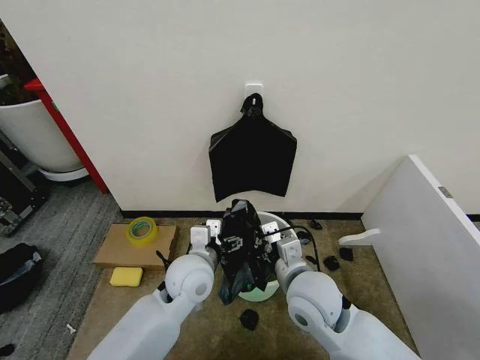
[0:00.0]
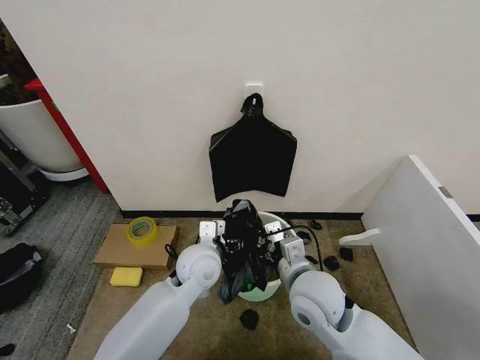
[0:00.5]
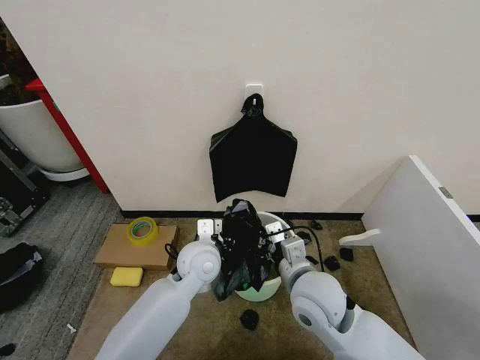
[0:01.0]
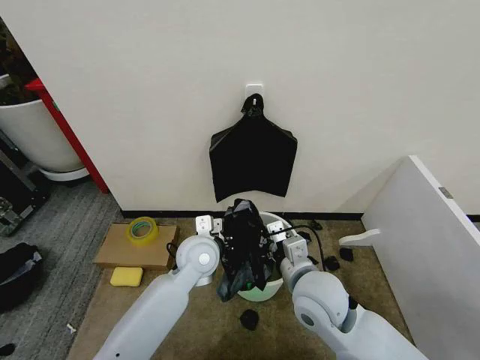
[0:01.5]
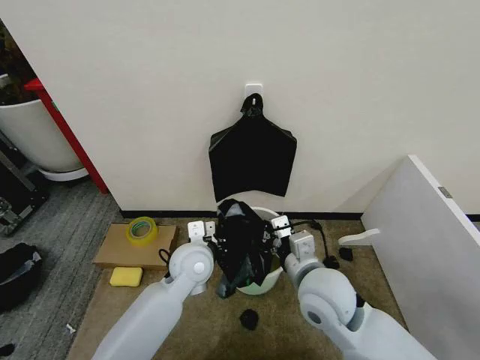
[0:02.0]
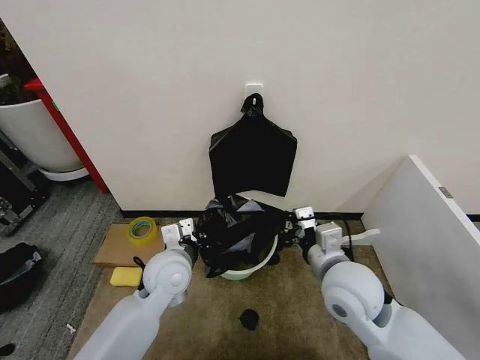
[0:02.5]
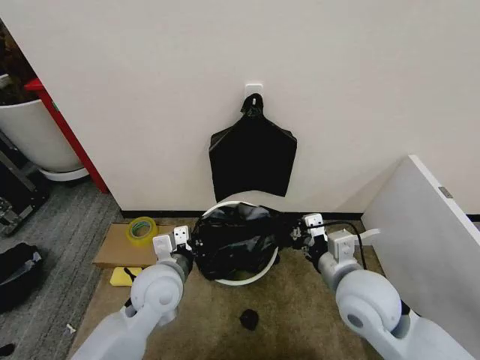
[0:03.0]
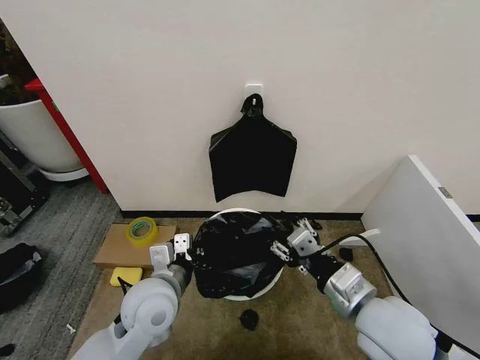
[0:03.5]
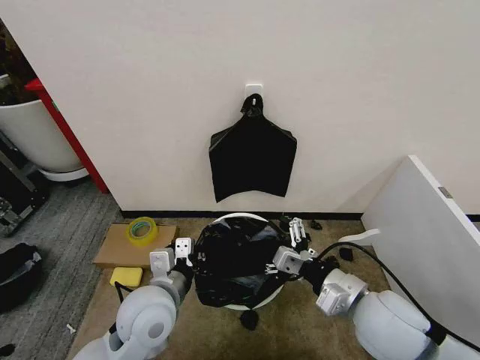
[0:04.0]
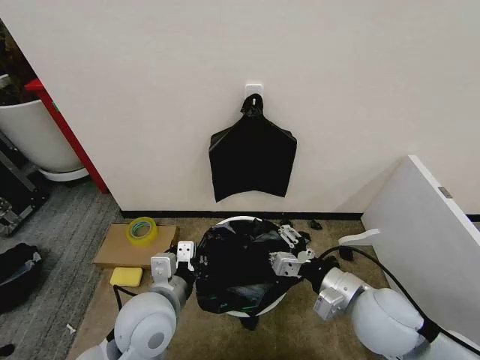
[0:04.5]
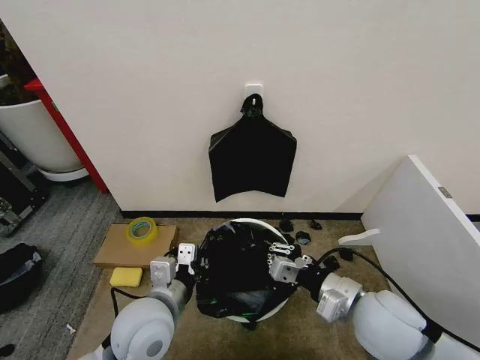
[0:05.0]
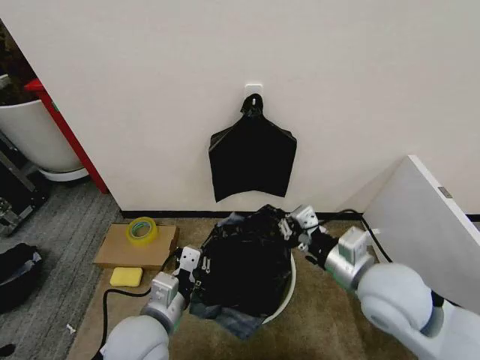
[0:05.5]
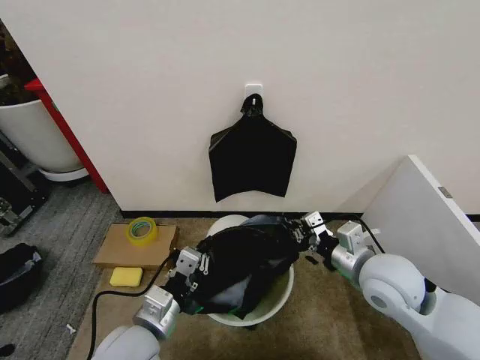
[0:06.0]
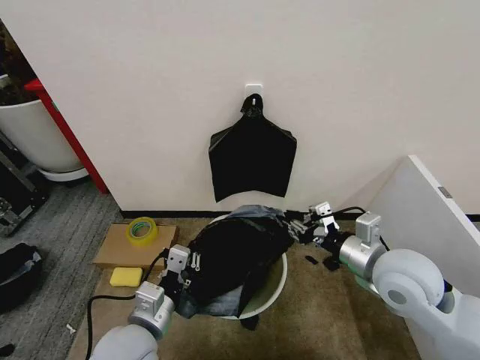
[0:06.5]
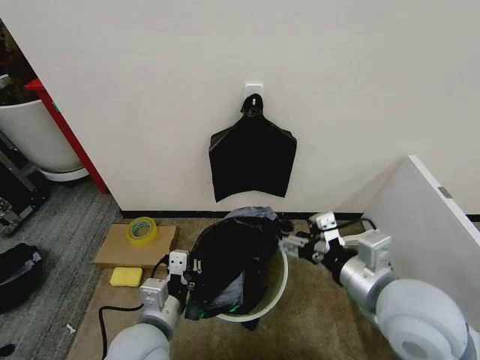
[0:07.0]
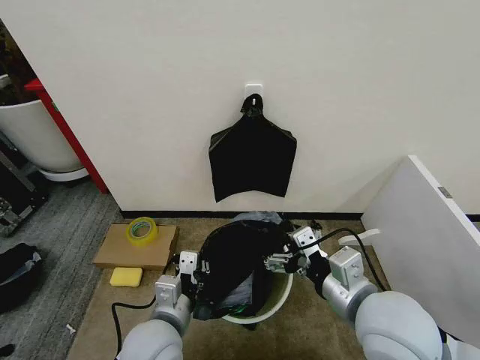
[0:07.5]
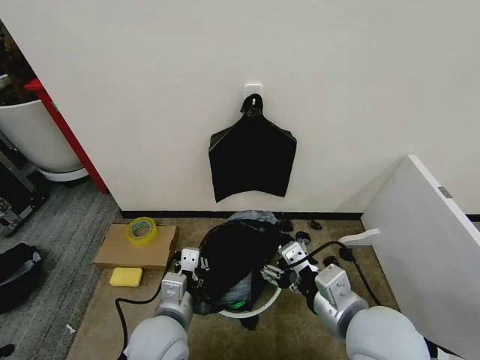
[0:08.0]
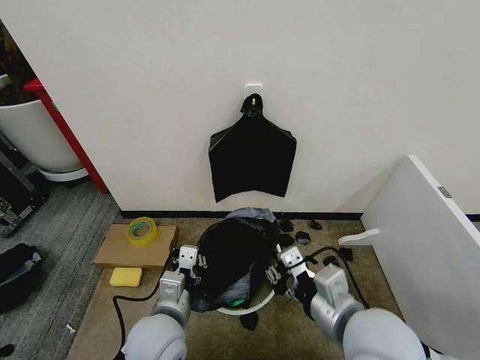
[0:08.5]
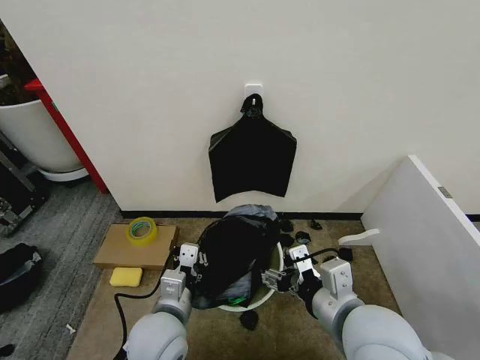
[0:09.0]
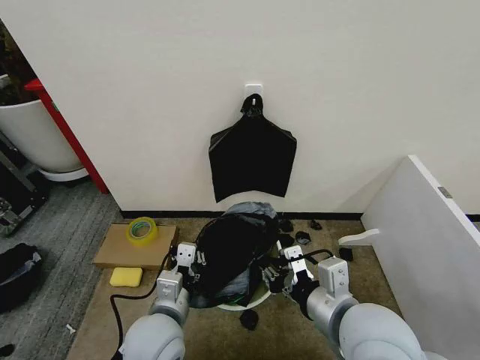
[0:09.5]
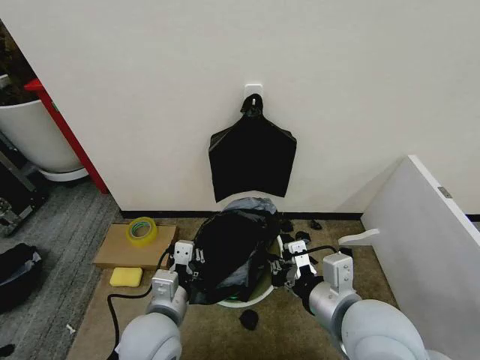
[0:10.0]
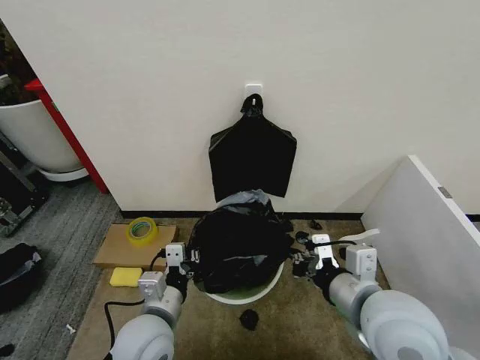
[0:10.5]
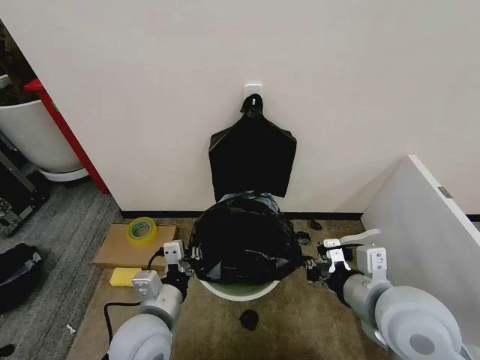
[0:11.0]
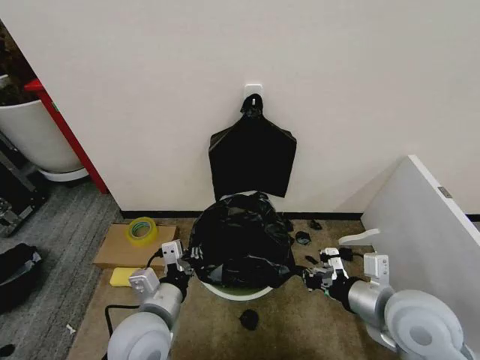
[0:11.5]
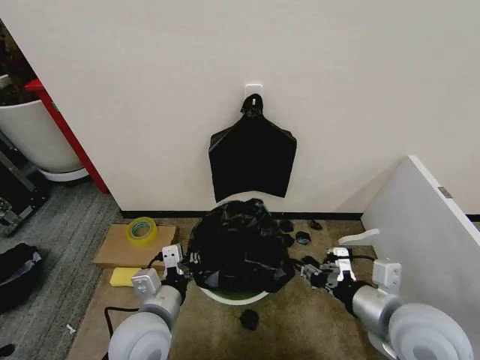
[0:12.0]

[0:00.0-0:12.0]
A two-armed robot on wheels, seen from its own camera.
Task of the whole recording: Place the garbage bag over the trash bin.
0:00.0 to 0:02.0: The left gripper closes up.
0:02.0 to 0:04.0: The left gripper moves backward and to the left, roughly 15 cm. Meanwhile the right gripper travels to the right by about 10 cm, and opens its fingers.
0:04.0 to 0:06.0: The left gripper goes some 5 cm backward; the right gripper heads forward, covering approximately 5 cm, and closes its fingers.
0:06.0 to 0:08.0: The right gripper travels backward and to the left by some 15 cm, and opens.
0:08.0 to 0:10.0: The right gripper closes.
0:10.0 to 0:12.0: The right gripper is displaced to the right by approximately 10 cm.

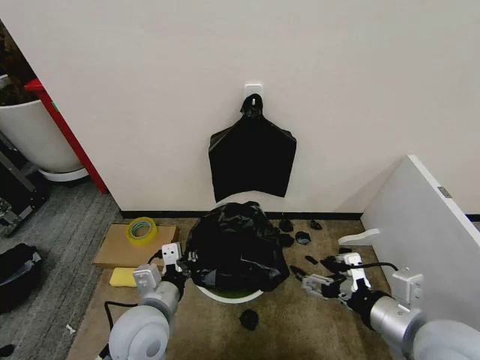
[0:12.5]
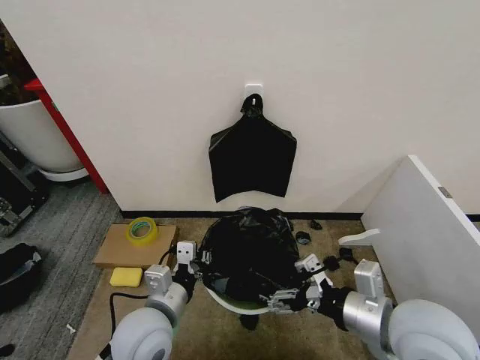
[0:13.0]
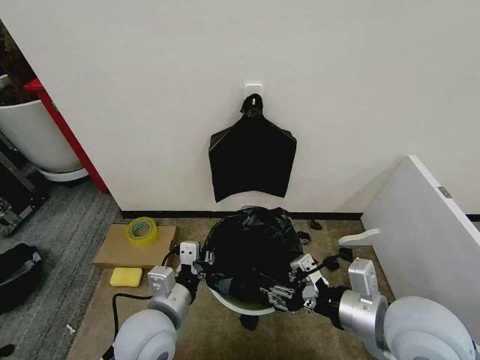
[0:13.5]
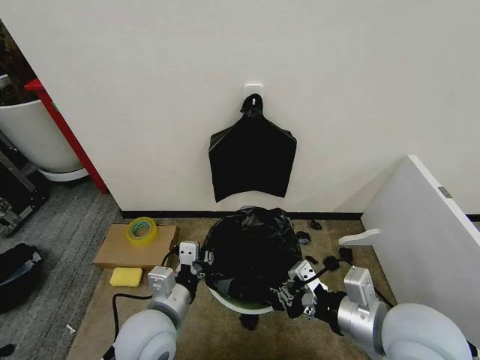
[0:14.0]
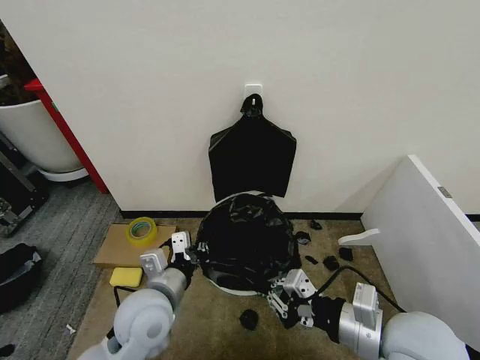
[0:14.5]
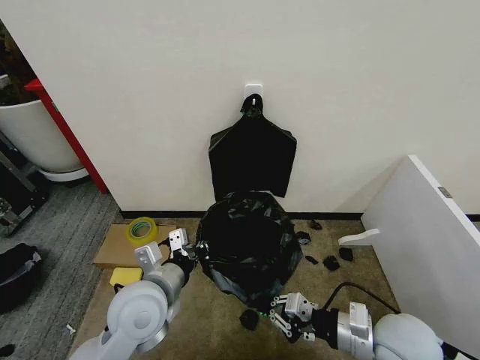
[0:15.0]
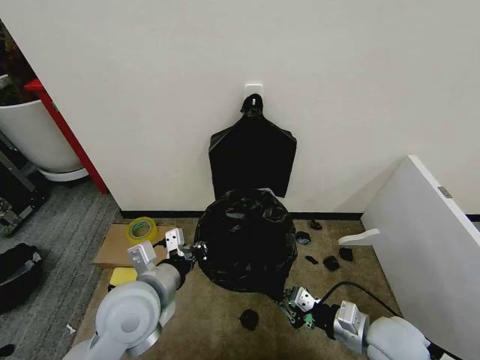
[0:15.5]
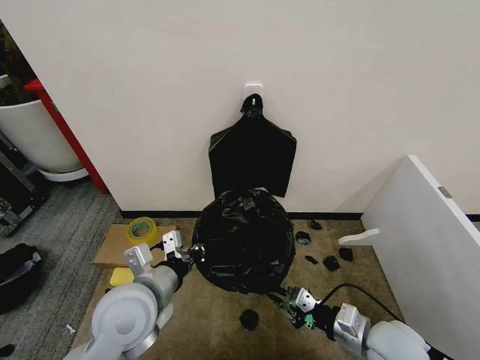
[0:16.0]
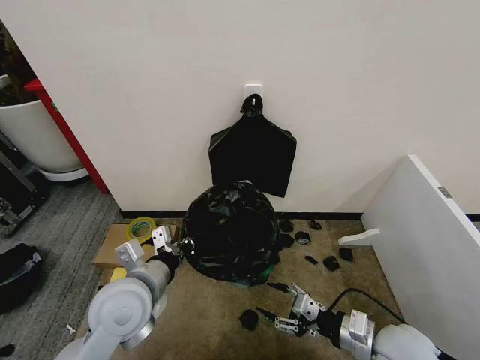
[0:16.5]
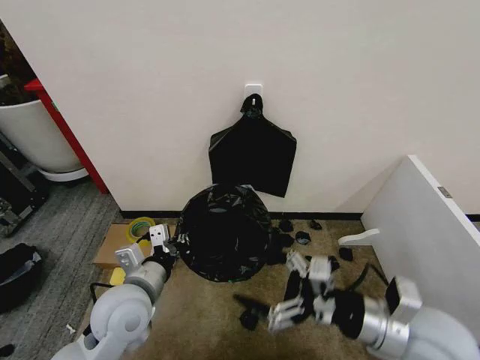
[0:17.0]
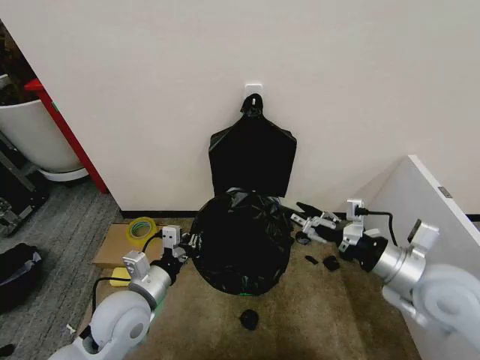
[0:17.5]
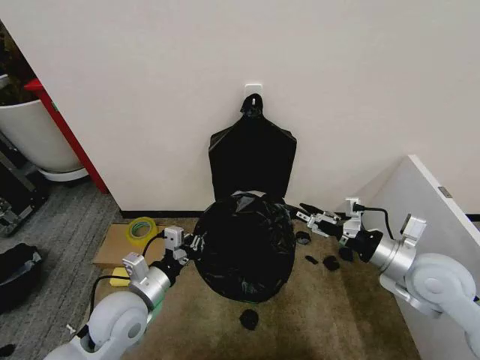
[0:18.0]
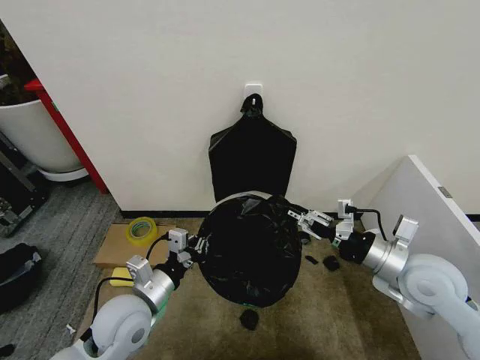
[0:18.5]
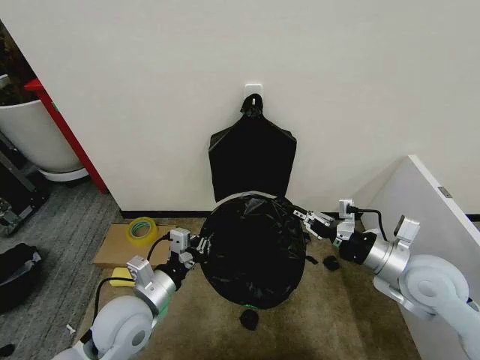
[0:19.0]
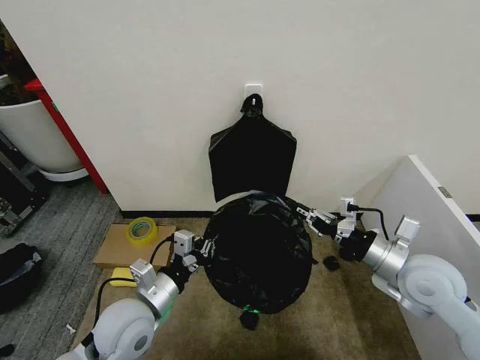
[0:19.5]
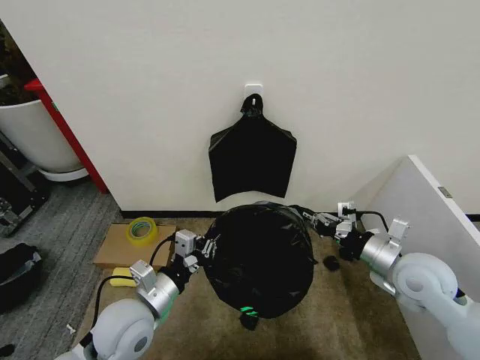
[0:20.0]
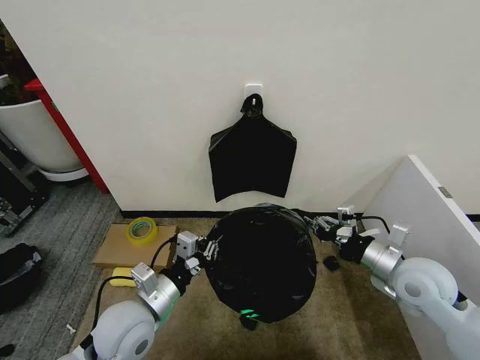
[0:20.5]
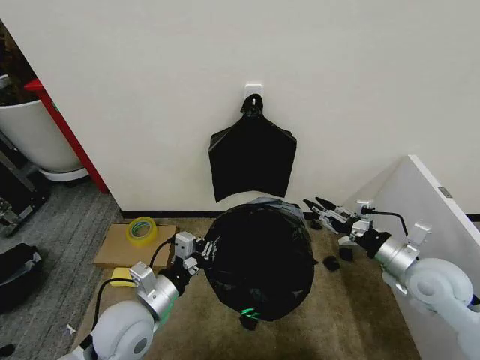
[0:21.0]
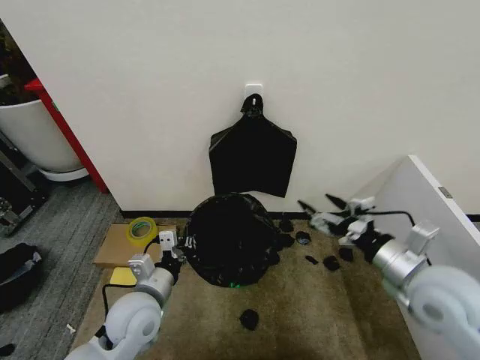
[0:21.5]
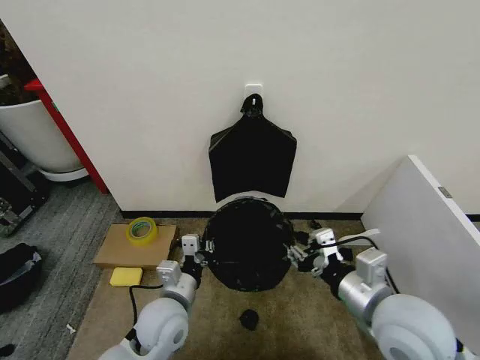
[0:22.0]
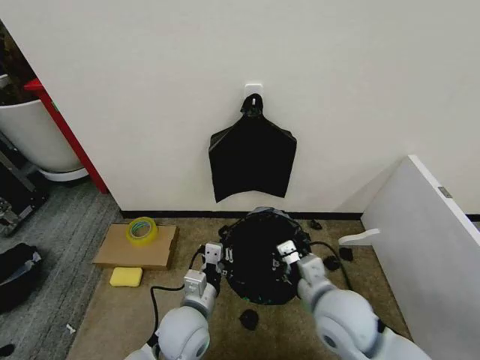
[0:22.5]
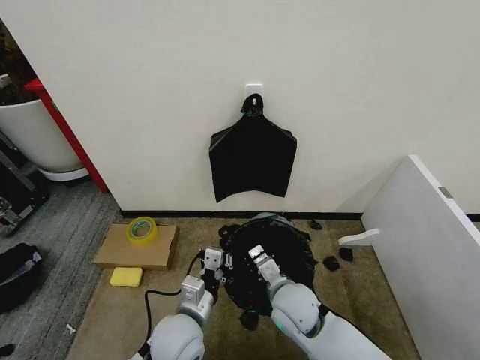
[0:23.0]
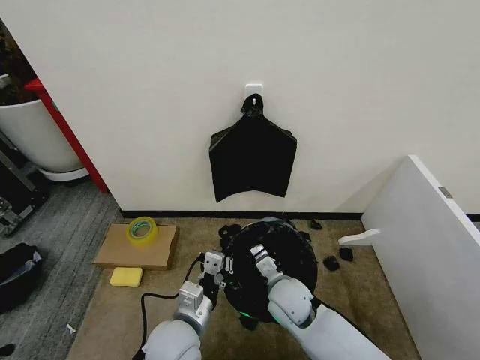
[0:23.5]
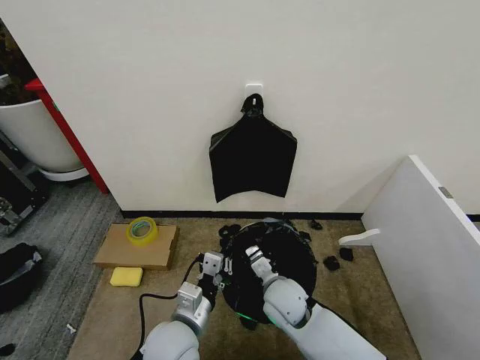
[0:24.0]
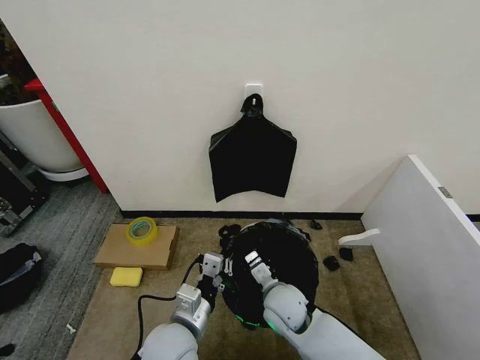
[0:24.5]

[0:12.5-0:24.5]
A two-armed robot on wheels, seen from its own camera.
Task of the whole recording: Place the garbage bag over the trash bin.
0:12.5 to 0:14.5: The right gripper closes.
0:14.5 to 0:16.5: The right gripper is displaced downward by roughly 10 cm, and opens.
0:16.5 to 0:18.5: The right gripper travels upward and forward by approximately 15 cm, and opens, then closes again. The left gripper heads downward, covering approximately 5 cm.
0:18.5 to 0:20.5: The right gripper closes up.
0:20.5 to 0:22.5: The left gripper travels to the right and downward by roughly 10 cm. The right gripper goes some 15 cm to the left, and opens and closes again.
0:22.5 to 0:24.5: The right gripper shifts about 15 cm downward, to the left and forward.

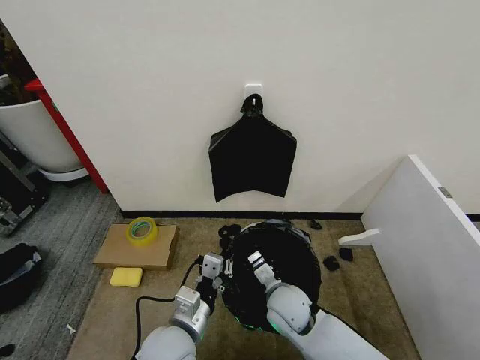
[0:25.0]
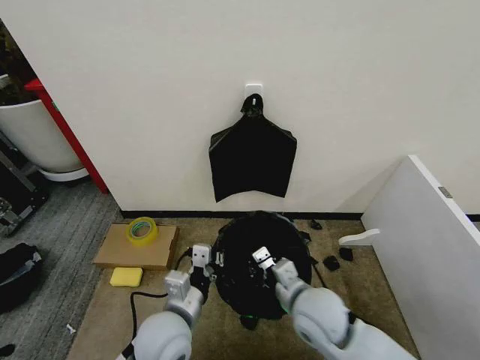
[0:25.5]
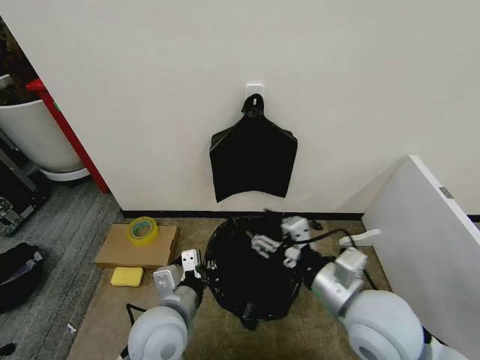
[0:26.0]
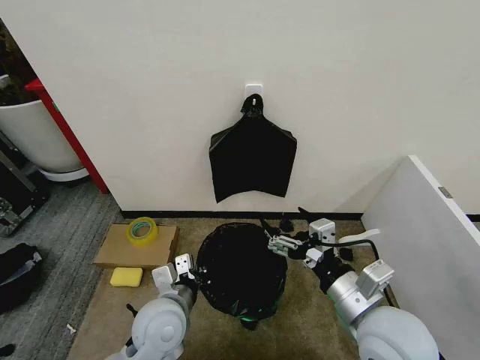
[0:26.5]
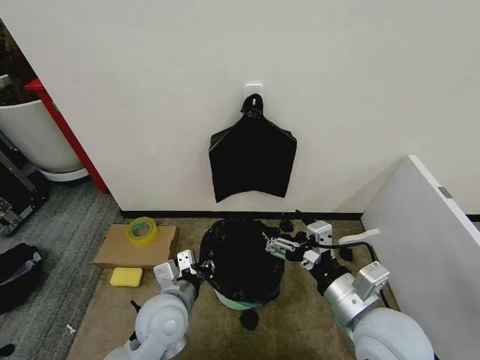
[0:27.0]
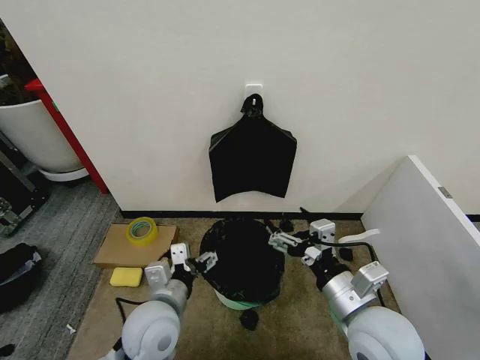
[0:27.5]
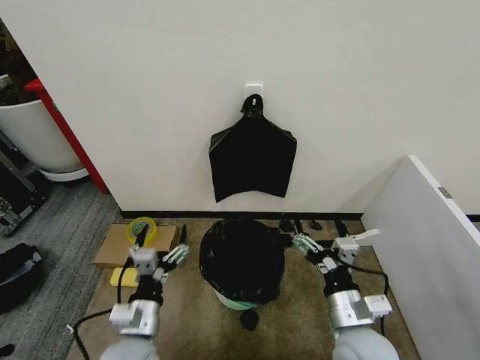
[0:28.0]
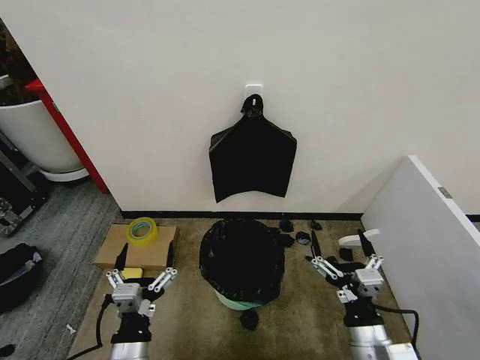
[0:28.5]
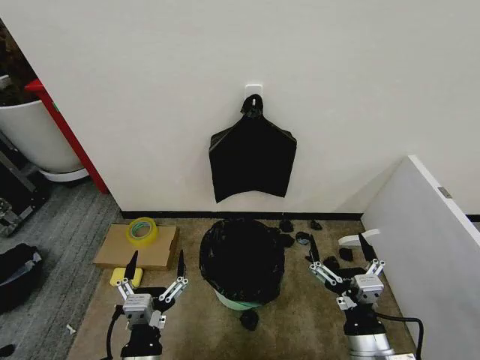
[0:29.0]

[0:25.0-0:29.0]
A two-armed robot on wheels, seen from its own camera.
Task of the whole recording: Place the garbage bag over the trash bin.
0:25.0 to 0:27.0: The left gripper heads forward, covering some 5 cm. Meanwhile the right gripper shifts roughly 20 cm upward, to the right and backward, and opens.
0:27.0 to 0:29.0: The right gripper goes approximately 10 cm downward and backward. The left gripper moves backward, about 15 cm, and opens.
